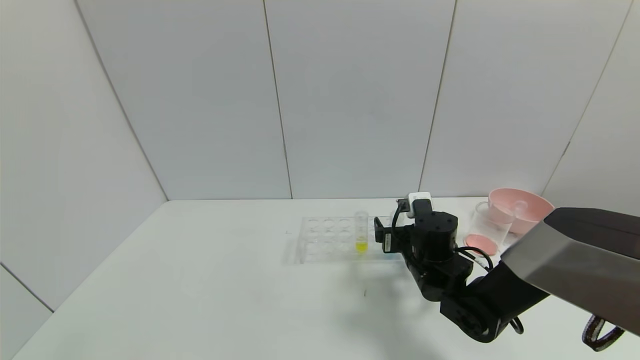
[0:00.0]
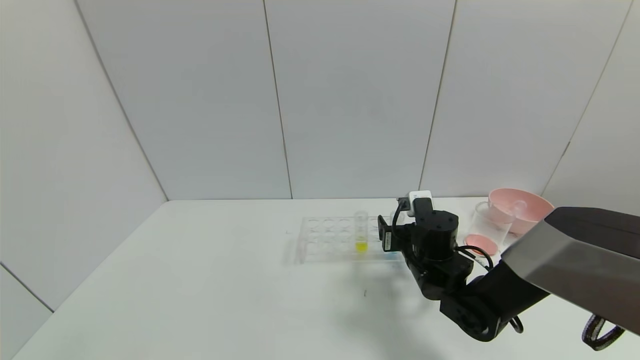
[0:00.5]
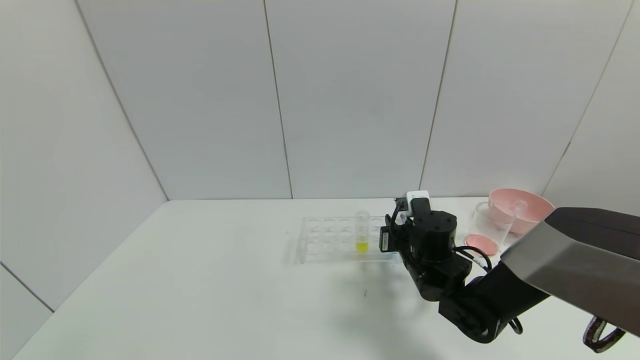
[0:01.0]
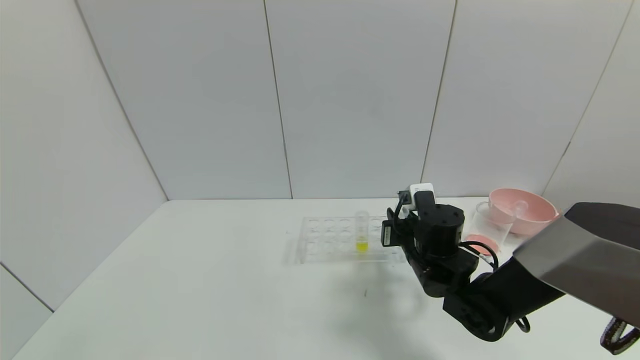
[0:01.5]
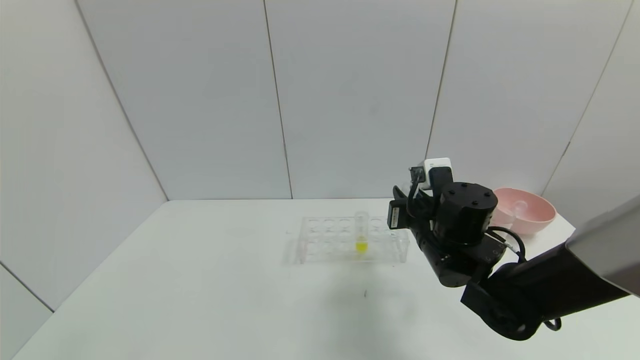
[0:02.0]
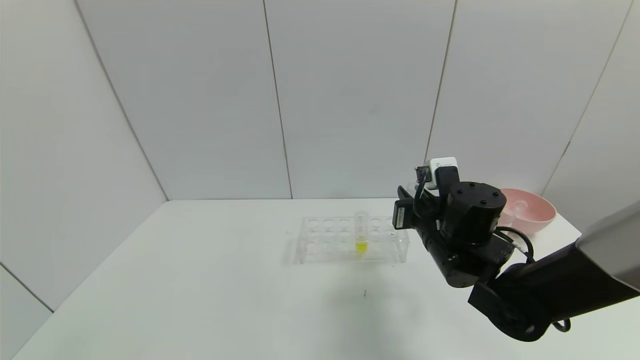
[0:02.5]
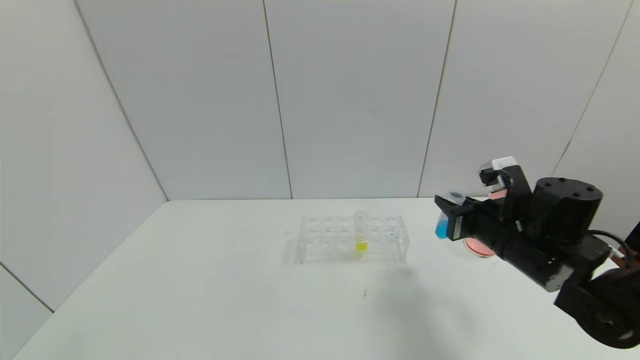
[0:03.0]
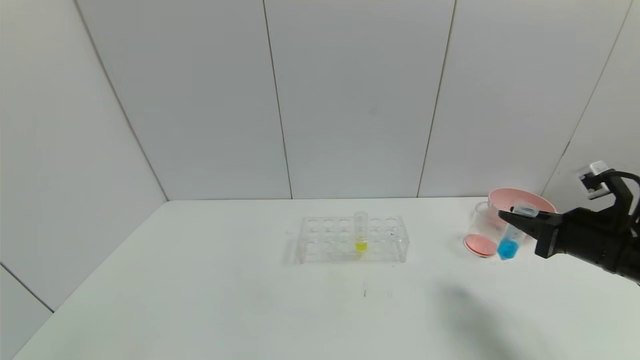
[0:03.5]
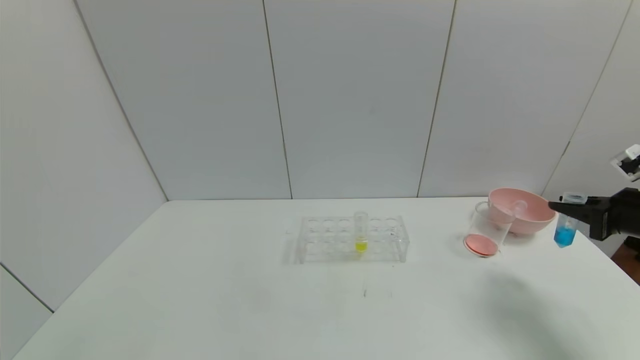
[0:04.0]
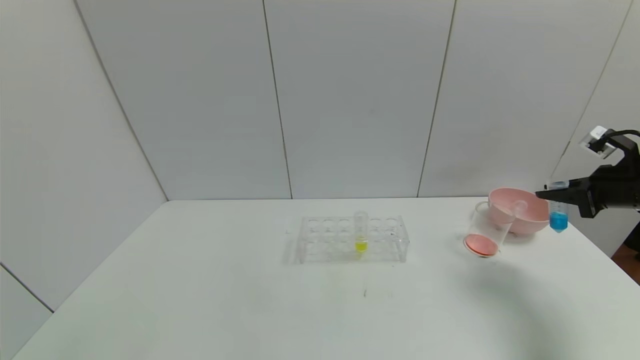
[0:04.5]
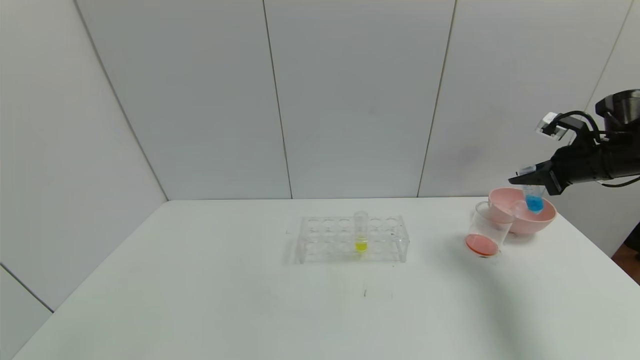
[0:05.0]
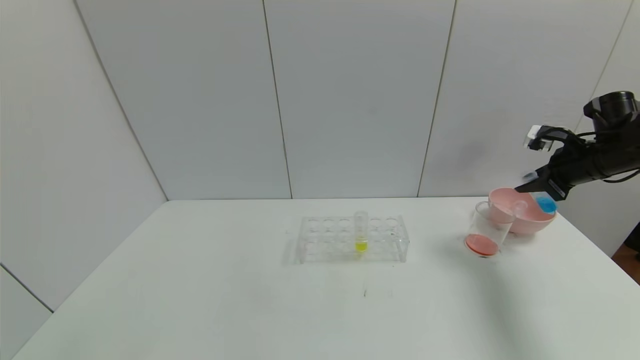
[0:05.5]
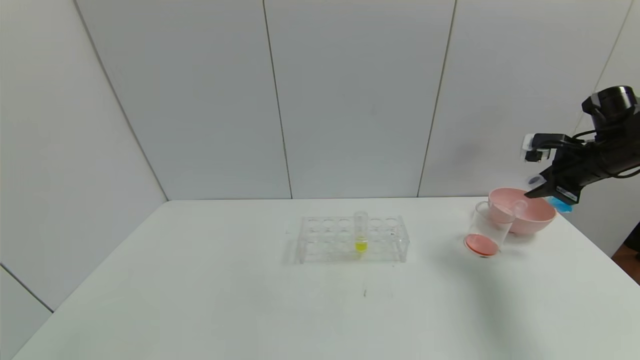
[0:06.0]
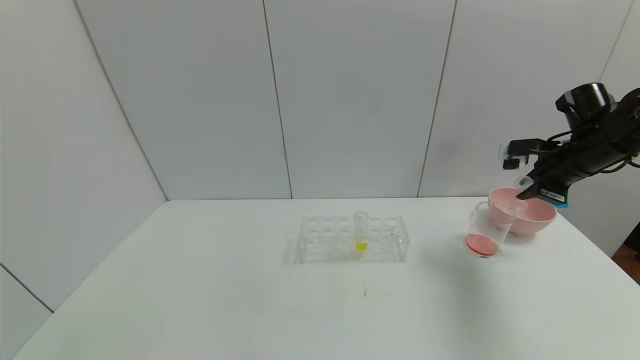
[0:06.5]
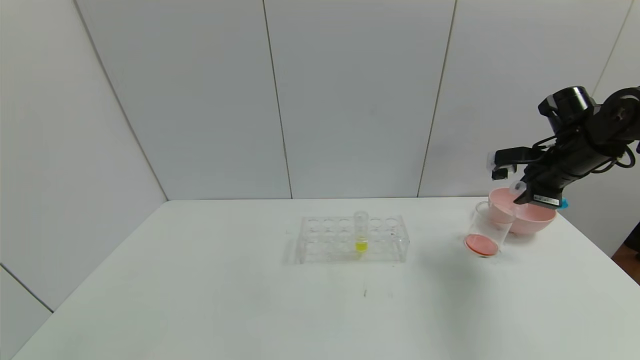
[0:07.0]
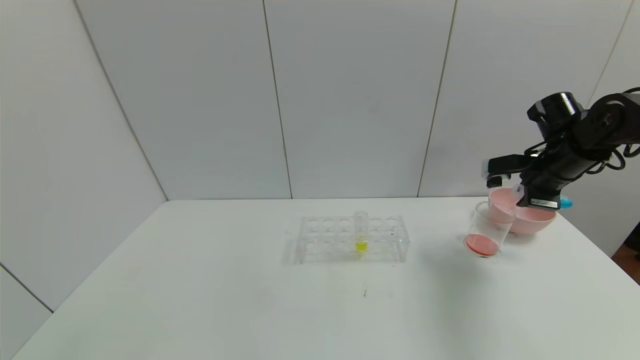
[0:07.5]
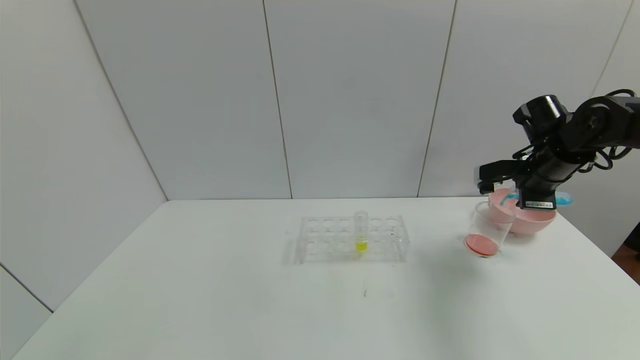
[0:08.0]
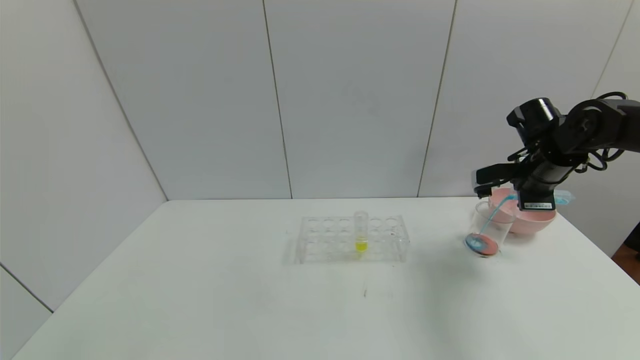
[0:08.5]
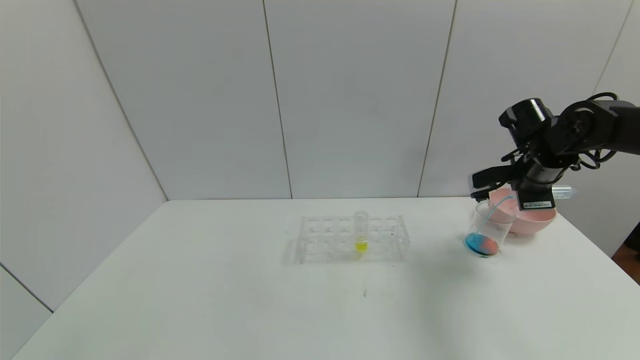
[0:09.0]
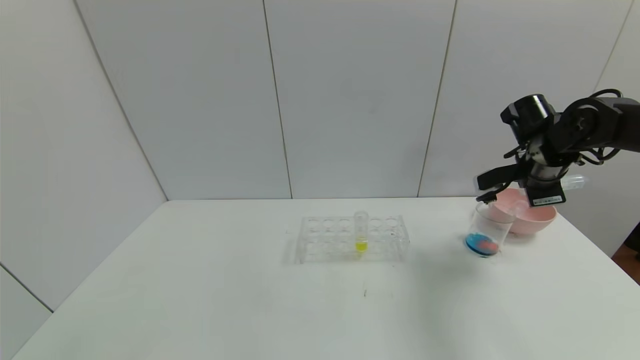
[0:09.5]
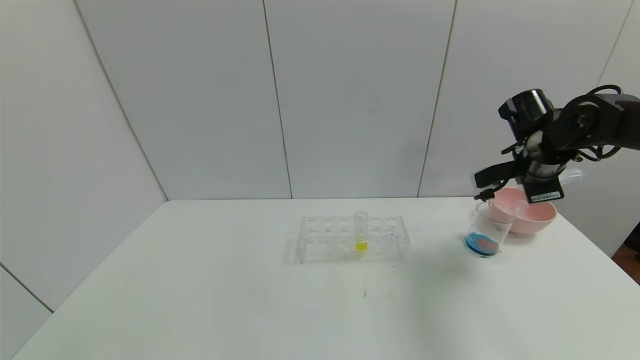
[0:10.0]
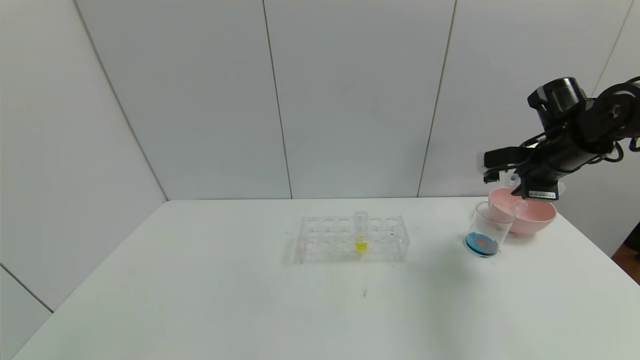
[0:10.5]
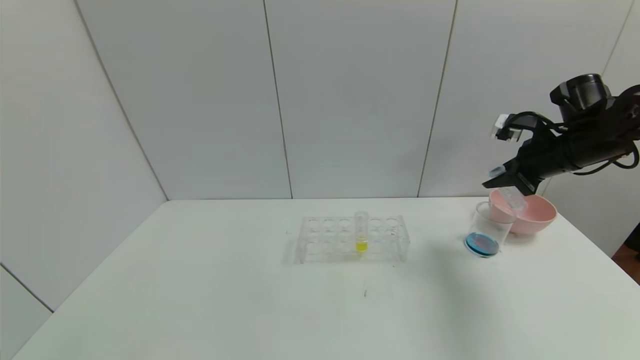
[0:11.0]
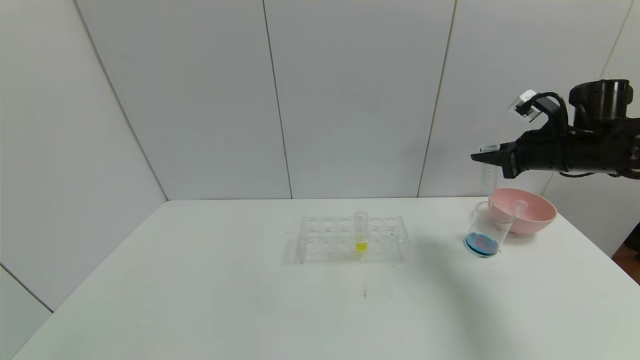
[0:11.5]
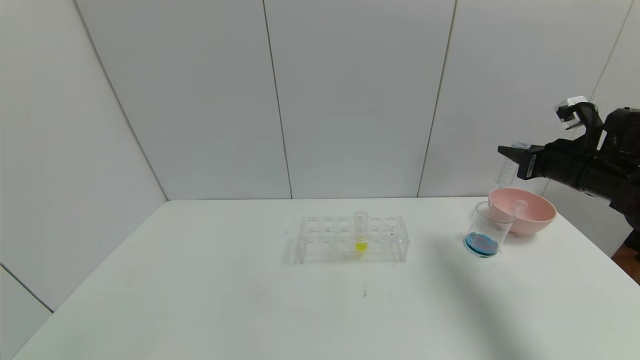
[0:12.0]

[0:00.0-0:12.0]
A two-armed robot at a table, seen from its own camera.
Task of the whole recording: pick up the test tube with red pigment and the test tube with blue pigment by grippers and pour them into the container.
Step, 0:01.5 to 0:09.5: Pour the blue reagent into the graduated cylinder with the right gripper.
0:00.0 to 0:02.0: The right gripper moves upward, some 5 cm, and closes its fingers.
0:02.0 to 0:04.0: The right gripper goes about 30 cm to the right.
0:04.0 to 0:06.0: The right gripper travels forward by roughly 10 cm.
0:06.0 to 0:08.0: The right gripper is displaced to the left by roughly 10 cm.
0:10.0 to 0:12.0: The right gripper heads to the right, covering roughly 5 cm.

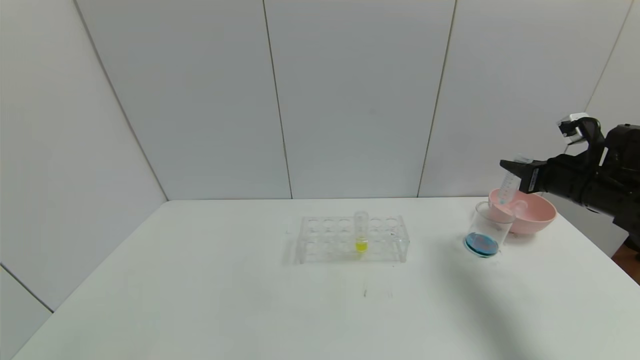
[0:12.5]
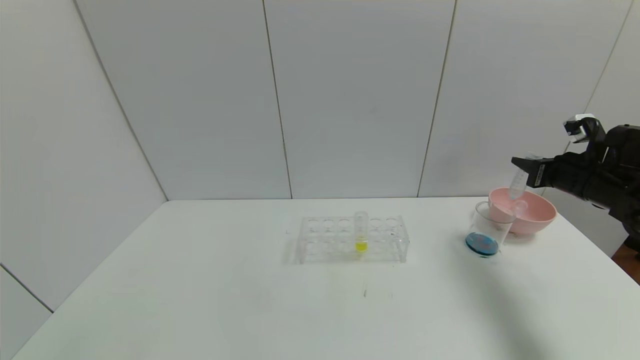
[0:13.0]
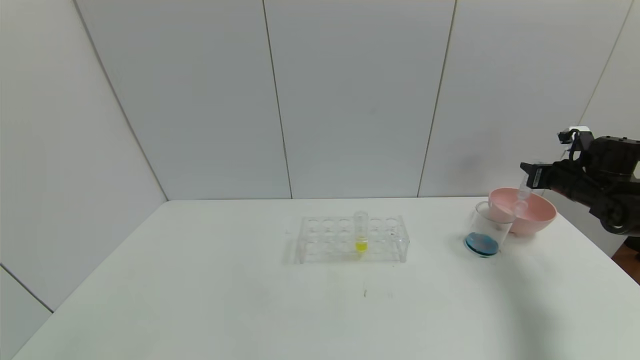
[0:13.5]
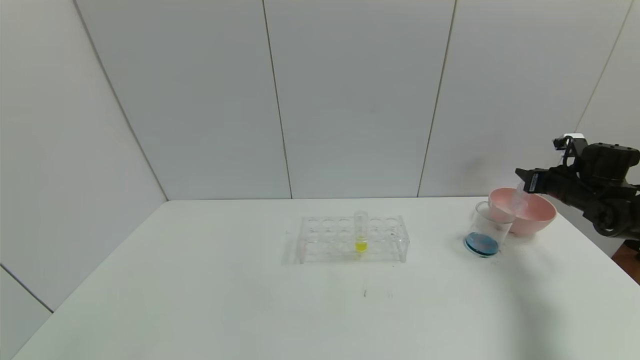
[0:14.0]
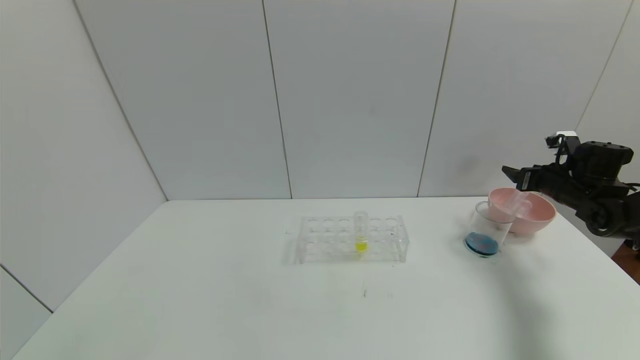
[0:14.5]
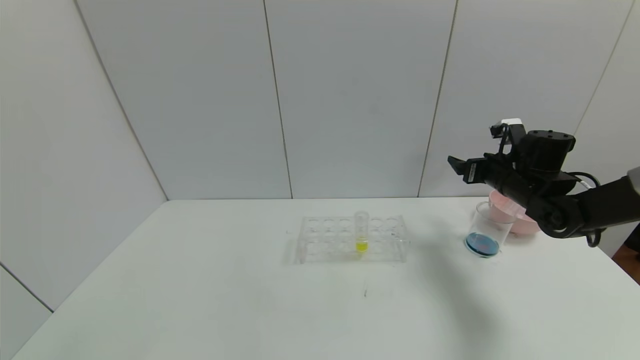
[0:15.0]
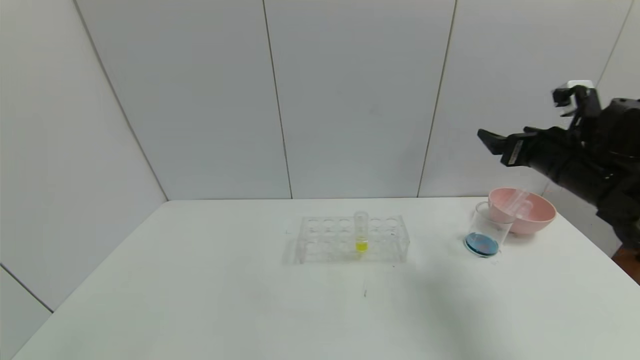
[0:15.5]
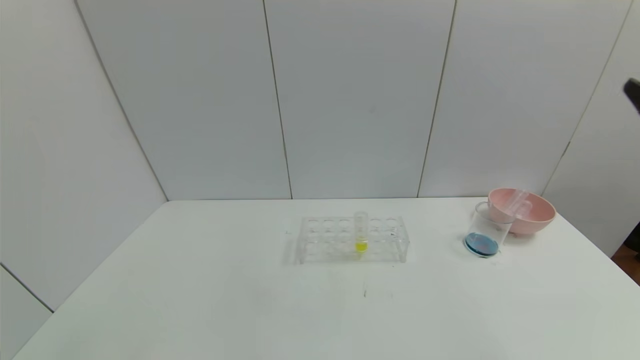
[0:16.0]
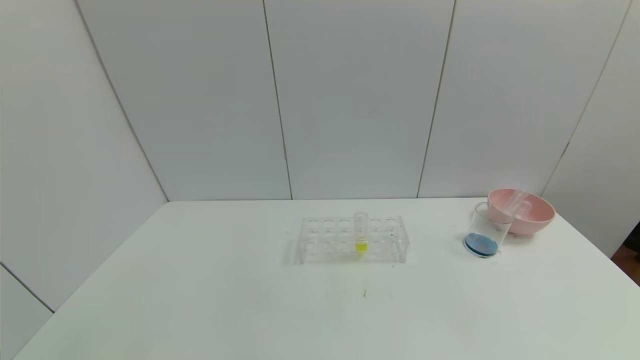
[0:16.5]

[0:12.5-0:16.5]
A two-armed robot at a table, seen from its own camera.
Task of the whole recording: pick up the test tube with red pigment and the test tube with blue pigment by grippers and pour them into the container.
Step, 0:12.5 to 0:14.5: Place the test tube into the bowl with the right gripper.
0:12.5 to 0:14.5: The right gripper goes some 10 cm forward, to the right and downward, and opens its fingers.
0:14.5 to 0:16.5: The right gripper heads backward, covering approximately 40 cm.

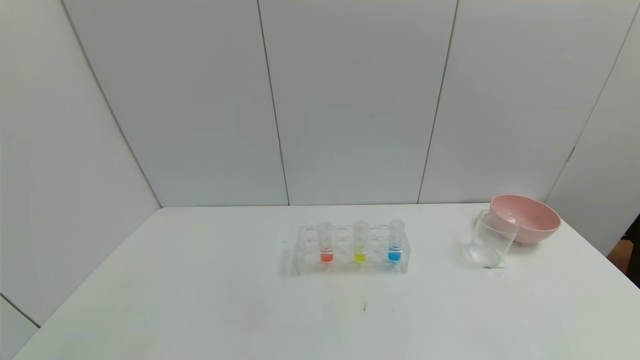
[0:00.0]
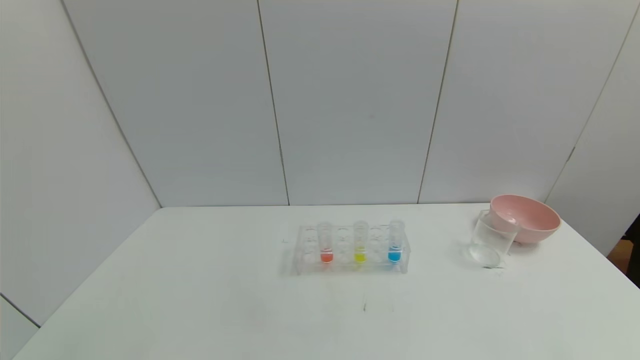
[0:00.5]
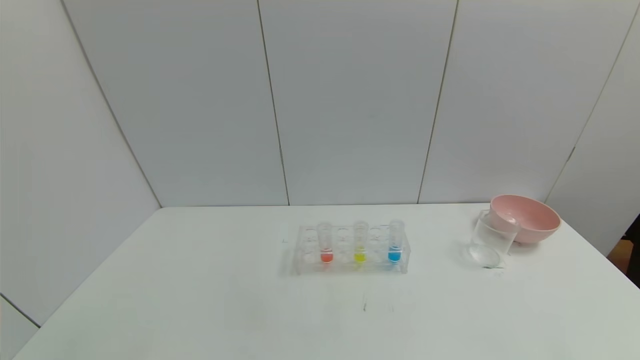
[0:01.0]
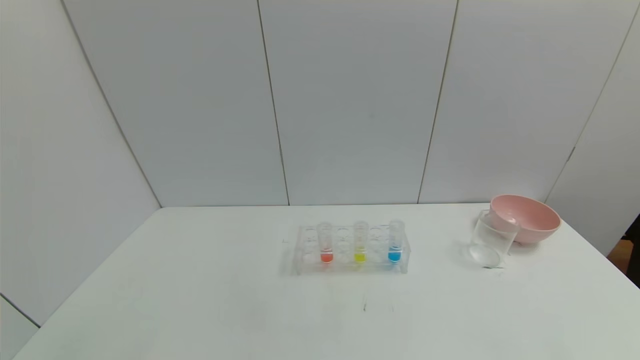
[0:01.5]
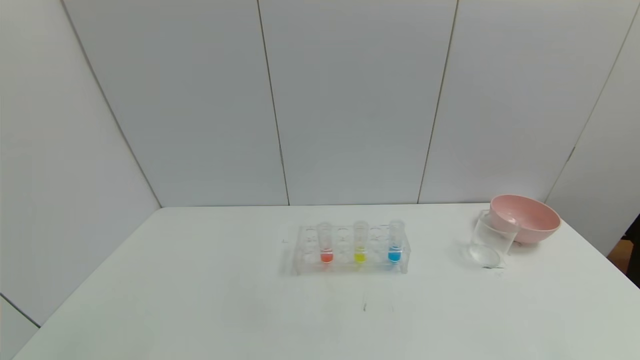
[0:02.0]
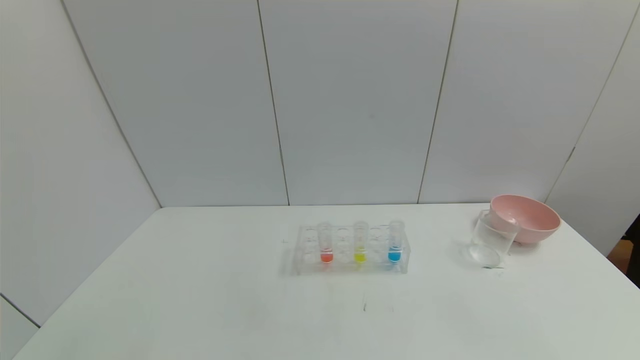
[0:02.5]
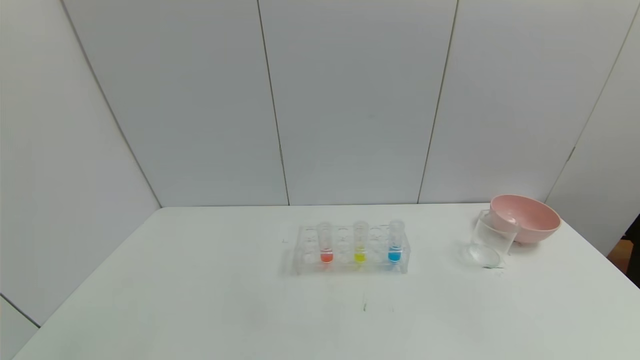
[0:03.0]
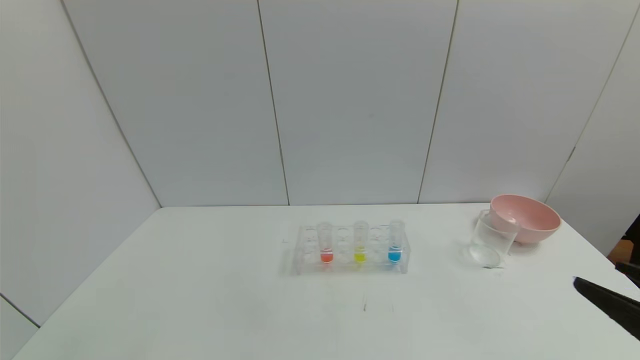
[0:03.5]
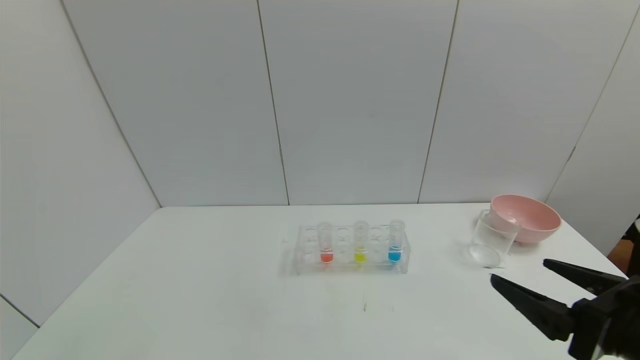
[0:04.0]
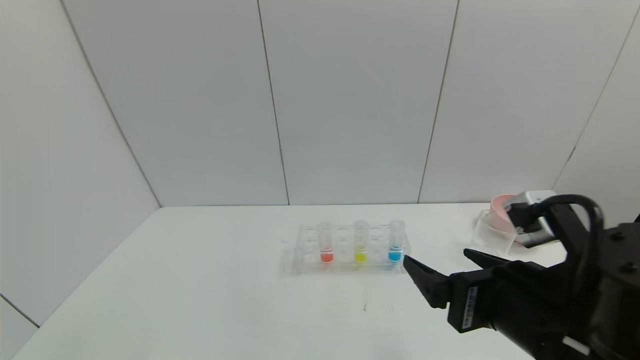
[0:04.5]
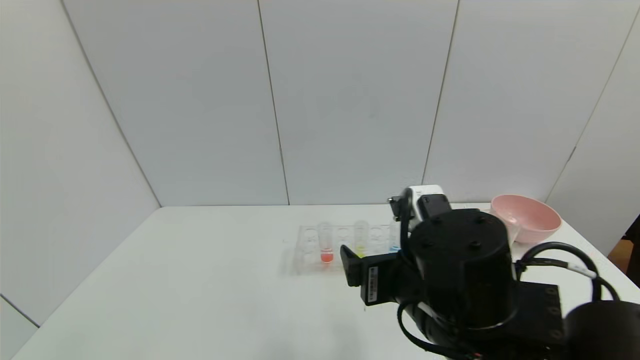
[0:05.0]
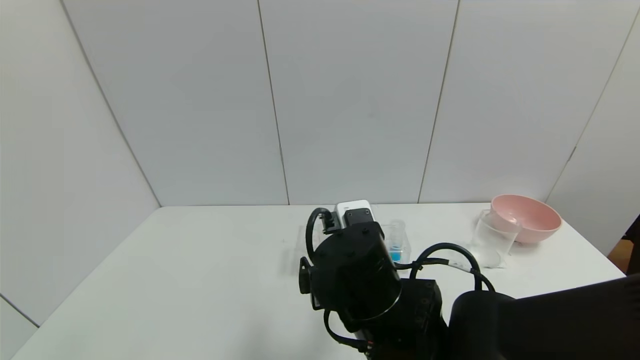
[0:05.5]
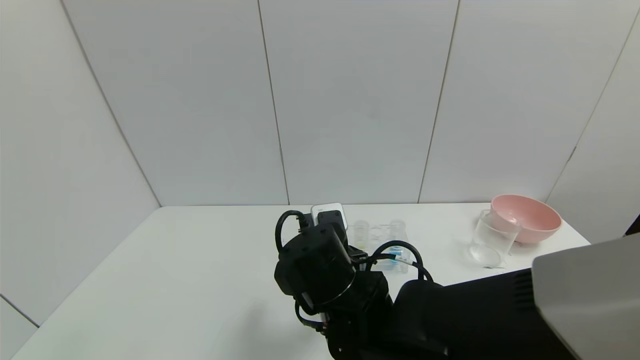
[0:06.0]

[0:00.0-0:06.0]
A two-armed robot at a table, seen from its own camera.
Task of the whole recording: pick up the test tube with red pigment and the test tube with blue pigment by grippers and pour them into the container.
0:00.0 to 0:02.0: The two grippers keep their place.
0:02.0 to 0:04.0: The right gripper heads forward, upward and to the left, covering some 20 cm.
0:04.0 to 0:06.0: The right gripper is displaced to the left and forward by roughly 30 cm.
